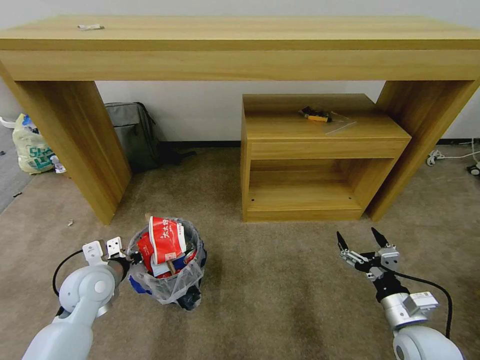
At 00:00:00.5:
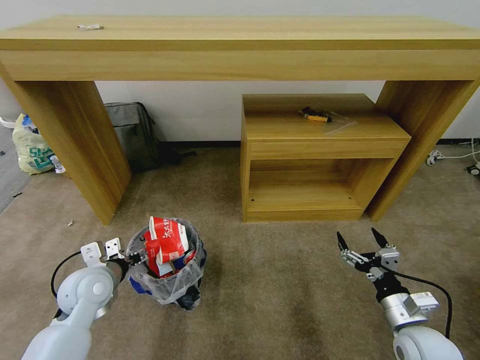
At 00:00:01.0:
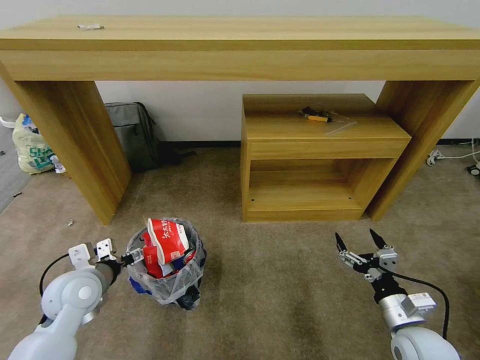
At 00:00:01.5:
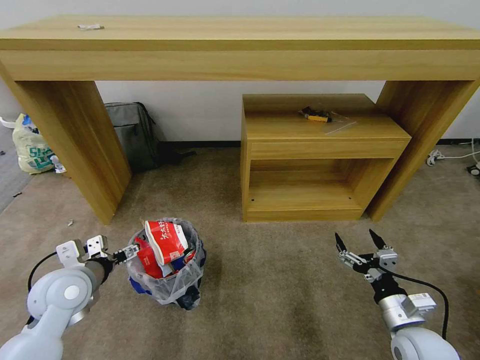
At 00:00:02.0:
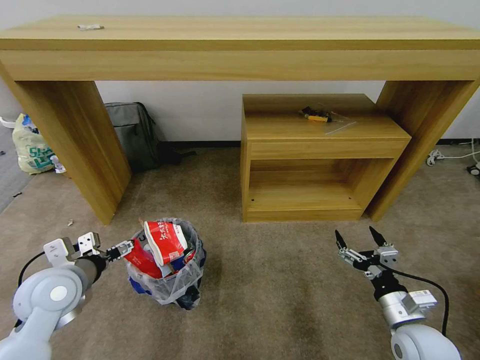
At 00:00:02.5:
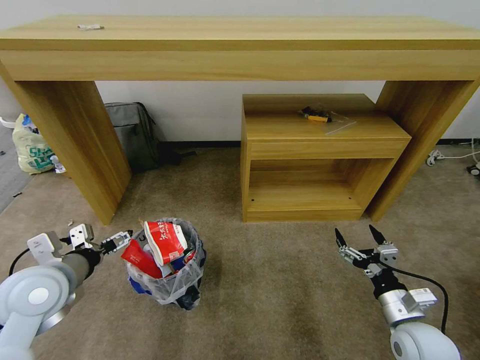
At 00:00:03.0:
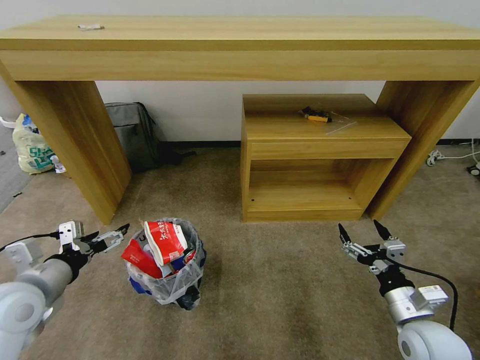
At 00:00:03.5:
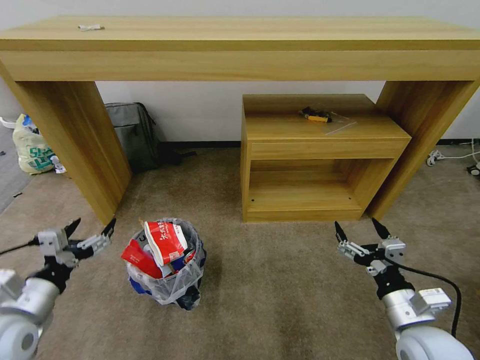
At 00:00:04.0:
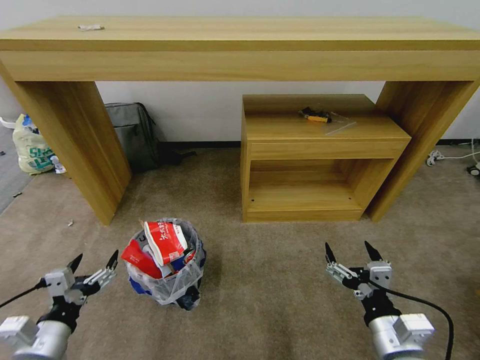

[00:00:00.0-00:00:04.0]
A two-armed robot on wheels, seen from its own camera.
Task of the whole recording: Pick up the trash bin and place the garbage on the floor into it.
00:00:00.0 to 00:00:02.0: The left gripper travels upward by roughly 5 cm, and opens.
00:00:02.0 to 00:00:04.0: The right gripper goes roughly 10 cm to the left, backward and upward. Meanwhile the left gripper shifts about 15 cm backward and downward.
